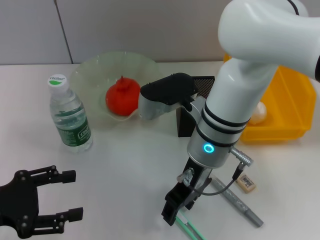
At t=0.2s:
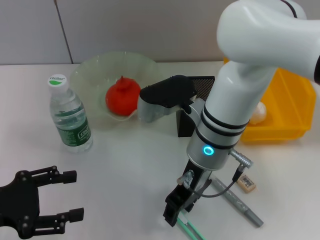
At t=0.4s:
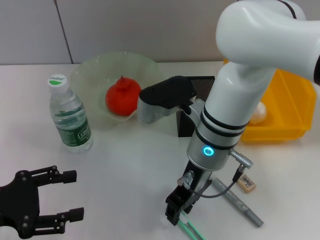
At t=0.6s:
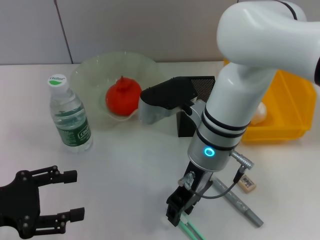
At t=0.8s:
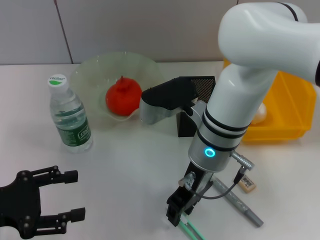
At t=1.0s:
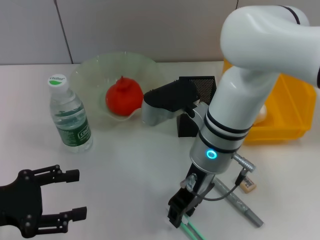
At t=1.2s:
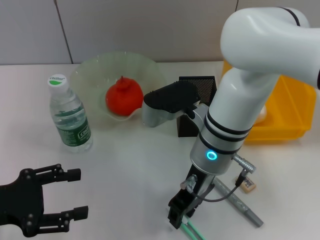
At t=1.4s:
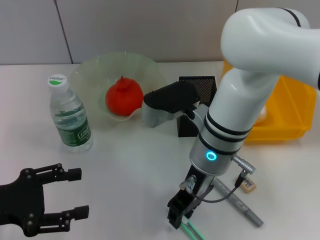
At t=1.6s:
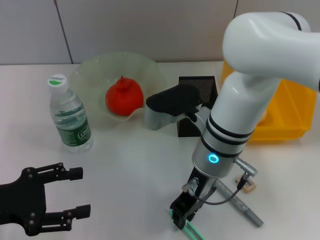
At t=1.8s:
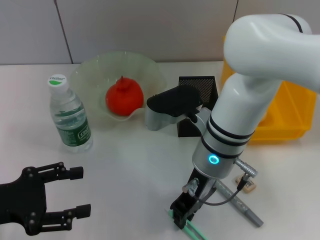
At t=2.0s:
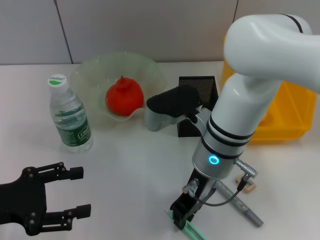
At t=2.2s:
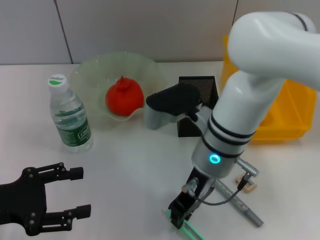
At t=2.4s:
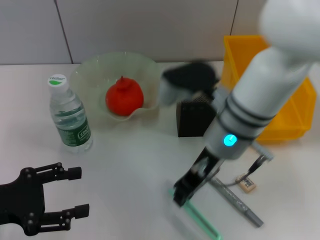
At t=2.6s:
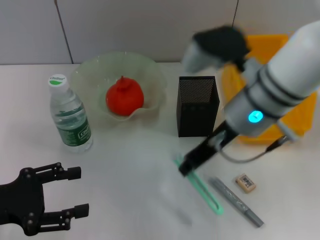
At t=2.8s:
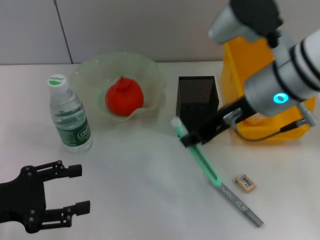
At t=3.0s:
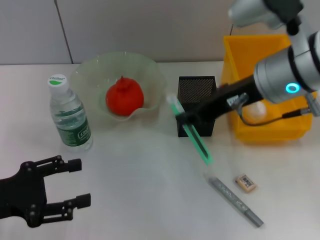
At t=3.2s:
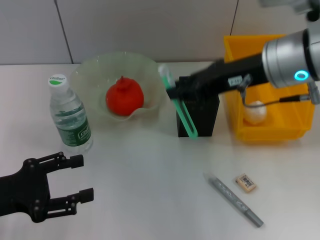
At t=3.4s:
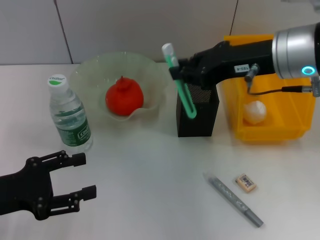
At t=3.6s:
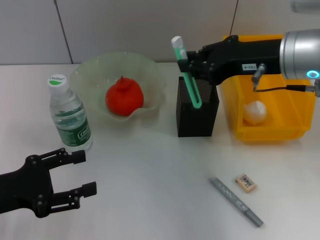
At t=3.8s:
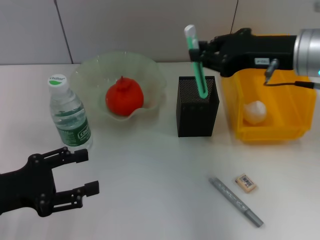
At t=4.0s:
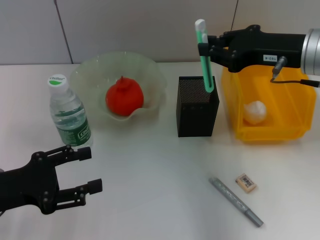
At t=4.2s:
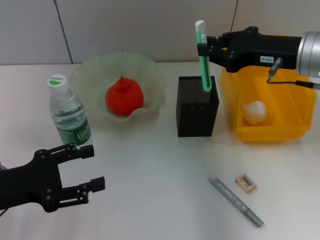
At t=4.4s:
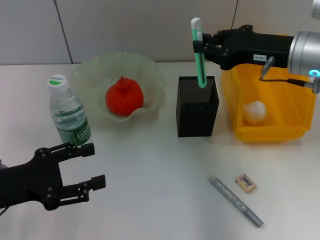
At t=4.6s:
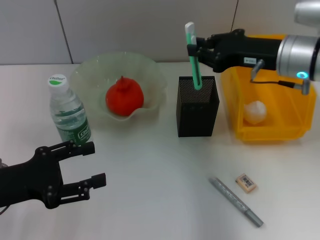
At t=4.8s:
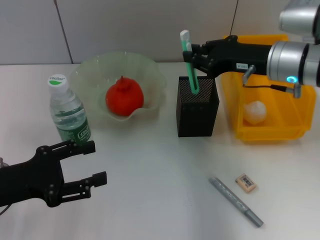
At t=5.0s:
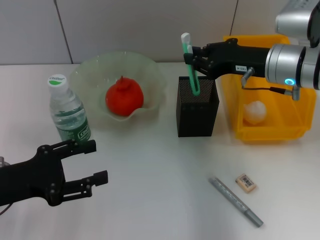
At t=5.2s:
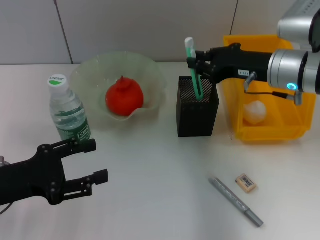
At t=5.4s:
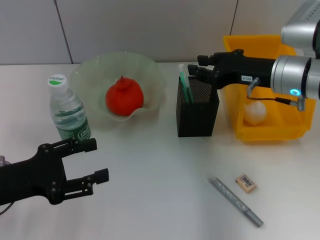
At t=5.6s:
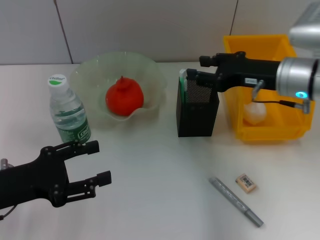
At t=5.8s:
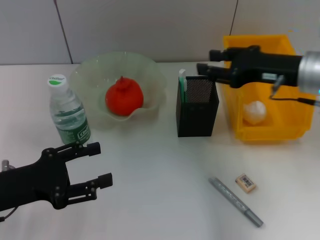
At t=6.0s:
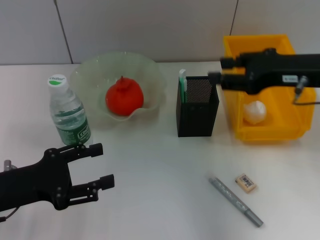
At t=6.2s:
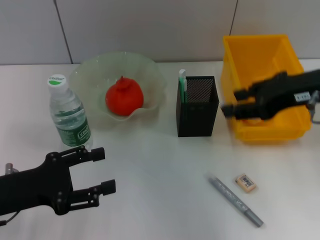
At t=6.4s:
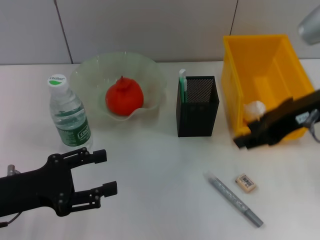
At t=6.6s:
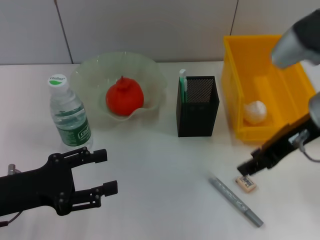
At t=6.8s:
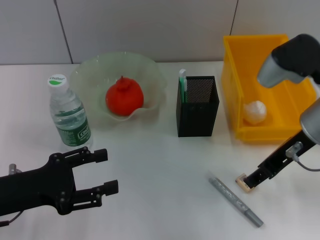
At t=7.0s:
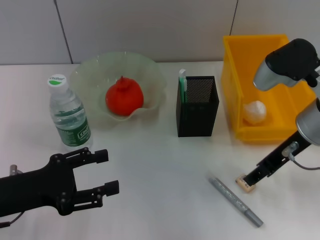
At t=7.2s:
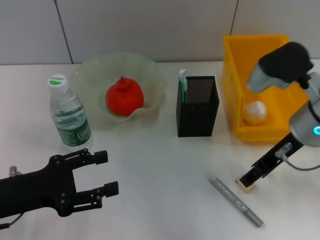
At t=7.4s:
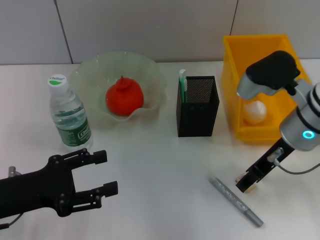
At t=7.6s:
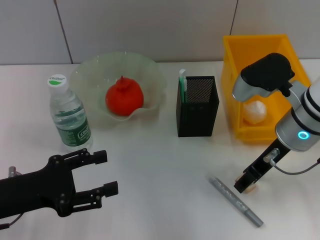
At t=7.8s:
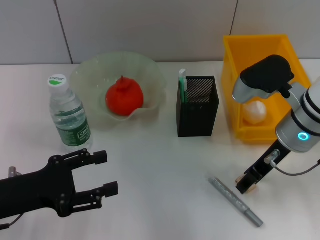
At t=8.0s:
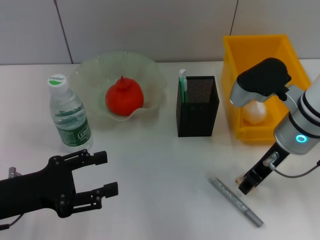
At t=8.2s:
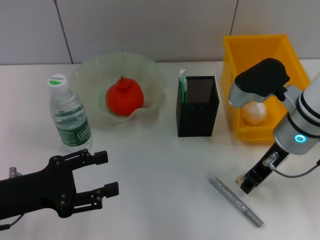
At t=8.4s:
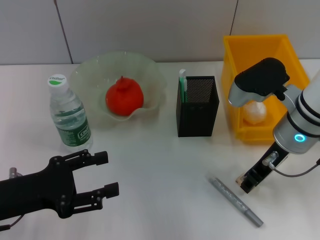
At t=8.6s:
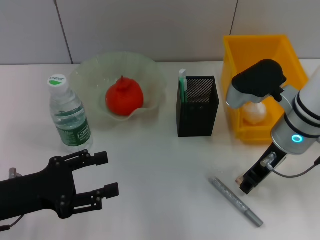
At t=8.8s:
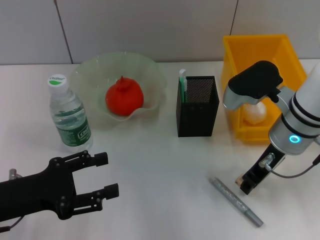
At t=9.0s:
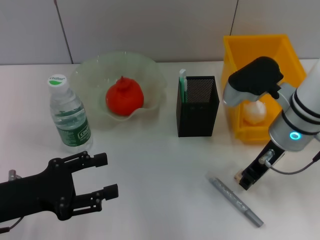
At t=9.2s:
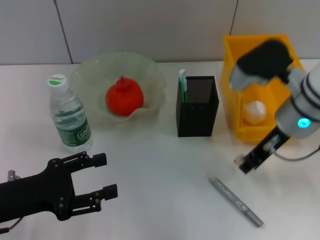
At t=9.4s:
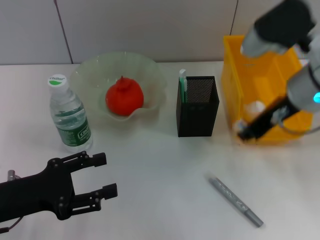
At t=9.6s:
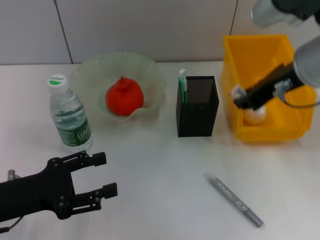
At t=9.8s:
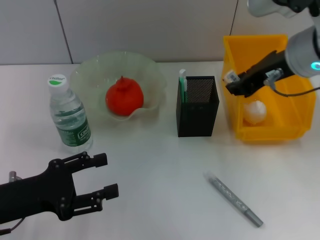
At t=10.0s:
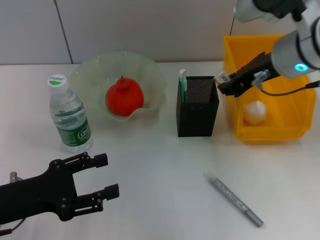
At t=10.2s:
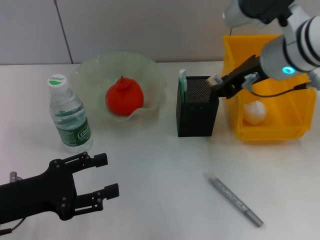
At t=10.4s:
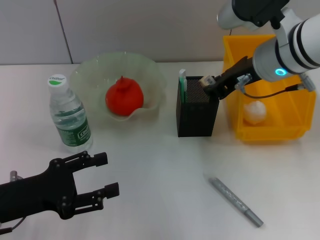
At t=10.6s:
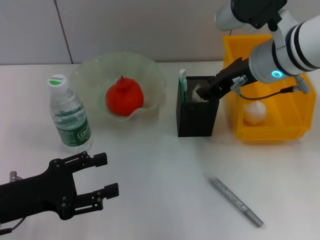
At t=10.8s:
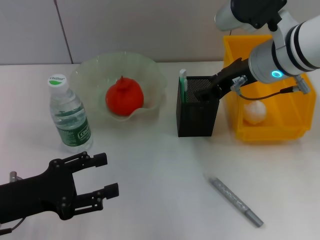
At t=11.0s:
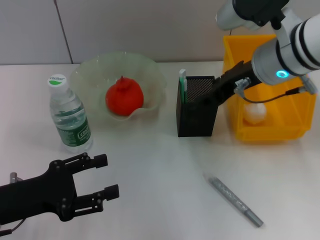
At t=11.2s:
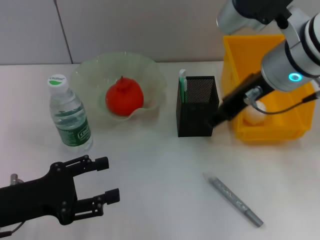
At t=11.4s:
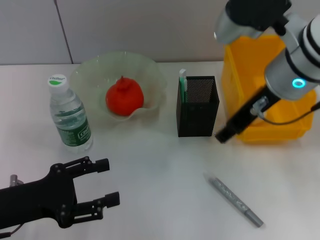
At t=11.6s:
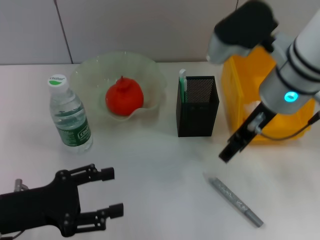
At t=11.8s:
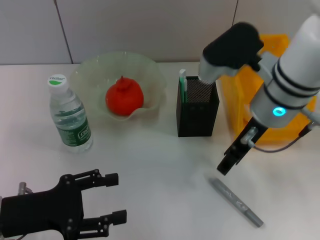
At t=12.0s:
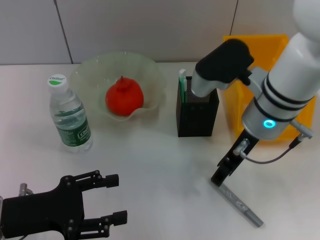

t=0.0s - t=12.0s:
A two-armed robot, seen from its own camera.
Step, t=0.0s - t=2.0s: Grab the blue utility knife with the right hand.
Step, t=2.4s - t=5.4s: Place the blue utility knife into the pen holder with the right hand.
Step, t=5.8s - t=8.8s: Grab the eraser with the right hand.
Step, t=9.0s - t=10.6s: Put the eraser into the pen holder with the right hand.
t=0.0s - t=1.6s: The grippers make only small movements.
t=1.6s - t=3.0s: The right gripper moves upward and to the right, approximately 15 cm.
t=3.0s - t=4.4s: The right gripper heads to the right, covering roughly 5 cm.
t=4.4s - t=6.0s: The right gripper ends up roughly 5 cm from where it was, and opens its fingers.
t=6.0s - t=7.6s: The right gripper moves downward and to the left, roughly 10 cm.
t=7.6s - t=9.0s: The right gripper closes.
t=9.0s - t=10.4s: The right gripper travels upward by approximately 5 cm.
t=10.4s - t=12.0s: The right gripper shifts by roughly 5 cm, and opens its fingers.

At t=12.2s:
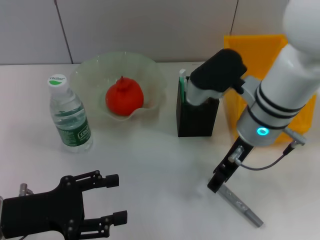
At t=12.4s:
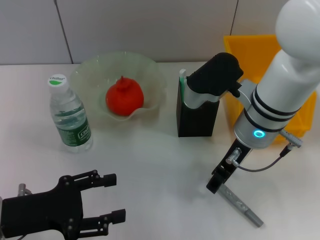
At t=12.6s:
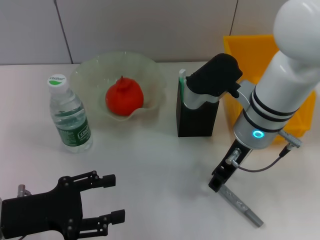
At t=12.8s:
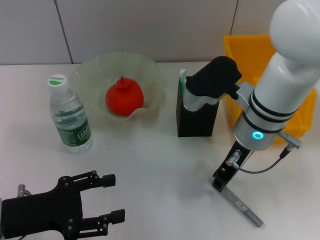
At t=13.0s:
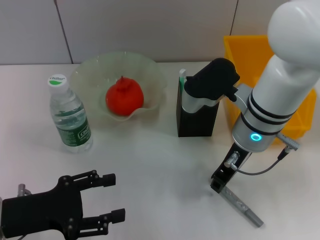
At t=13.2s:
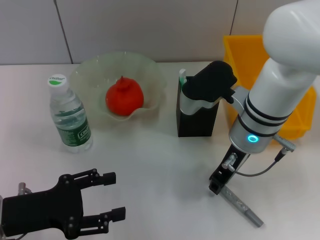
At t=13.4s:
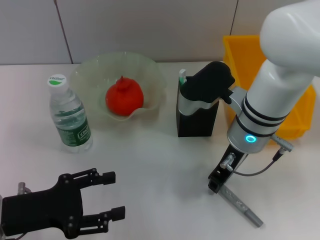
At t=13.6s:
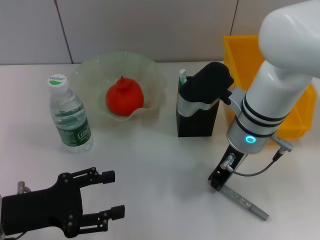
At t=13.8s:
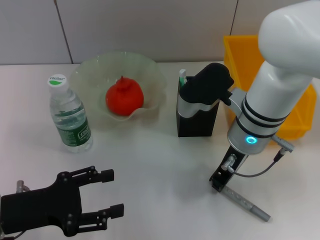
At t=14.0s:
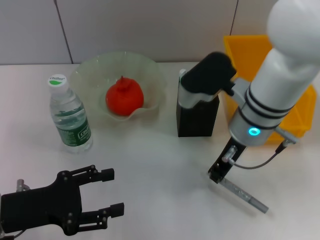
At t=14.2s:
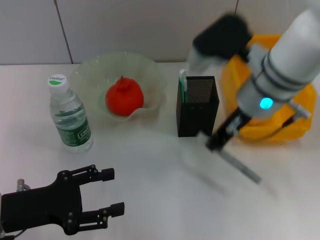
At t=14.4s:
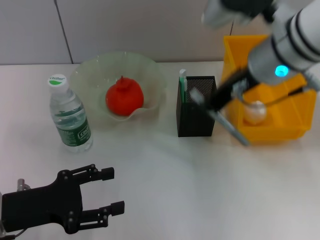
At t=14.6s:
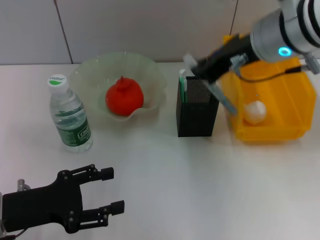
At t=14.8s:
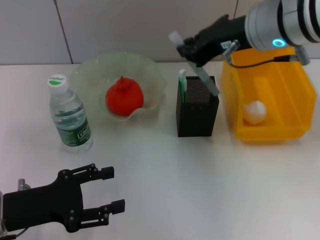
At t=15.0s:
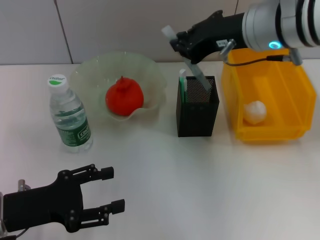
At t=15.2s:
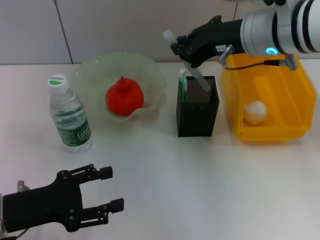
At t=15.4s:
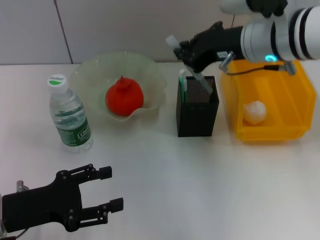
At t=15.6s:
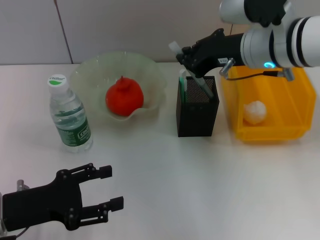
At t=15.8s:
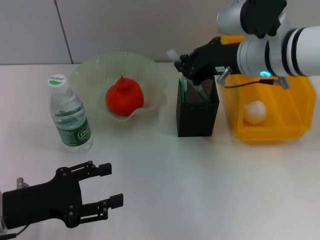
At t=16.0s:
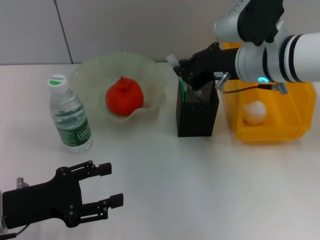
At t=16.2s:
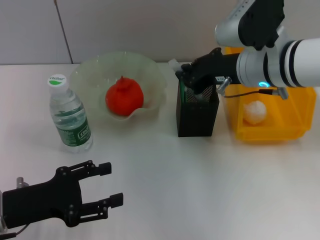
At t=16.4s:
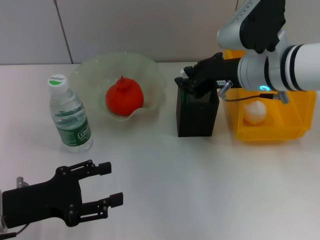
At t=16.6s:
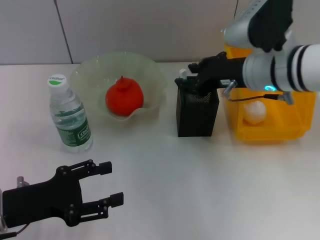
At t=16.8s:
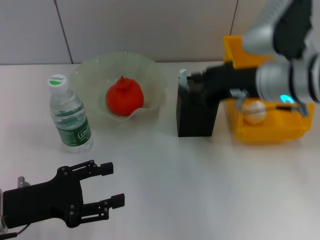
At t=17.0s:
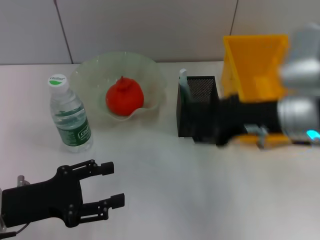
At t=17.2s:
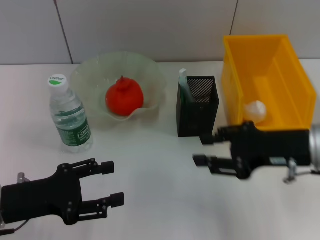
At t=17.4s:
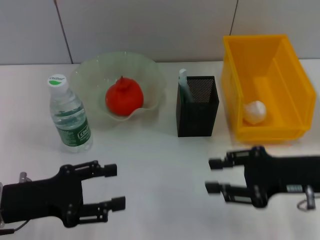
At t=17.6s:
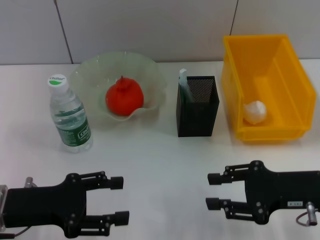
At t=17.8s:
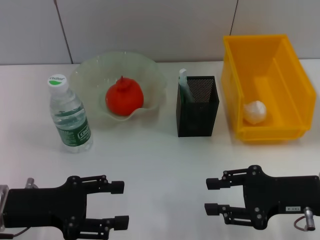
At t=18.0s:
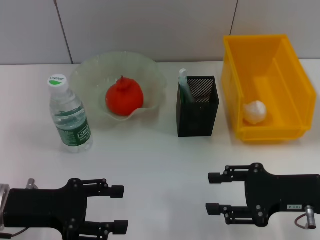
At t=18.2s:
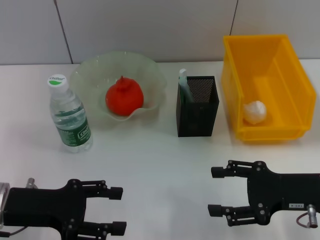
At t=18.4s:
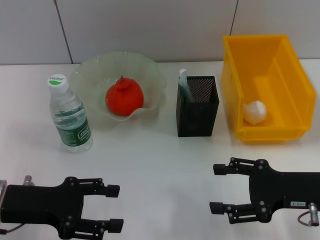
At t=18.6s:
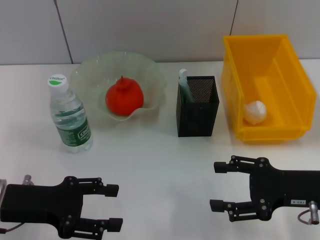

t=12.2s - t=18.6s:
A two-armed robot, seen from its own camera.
Step, t=13.8s - t=16.6s: Place the gray glue into the pen holder with the right hand.
t=12.2s - t=13.8s: The right gripper closes.
t=13.8s - t=15.4s: The right gripper moves upward, some 10 cm.
t=15.4s - t=17.0s: The right gripper is displaced backward by some 5 cm, and opens.
t=17.0s - t=18.6s: The right gripper moves downward, to the right and backward, about 15 cm, and opens.
